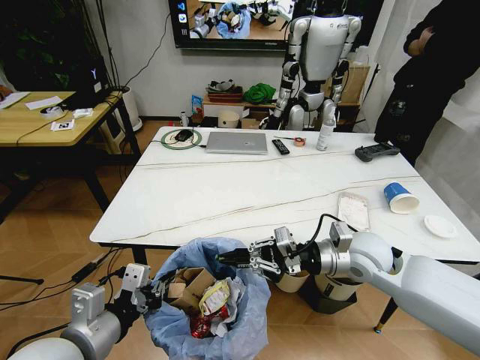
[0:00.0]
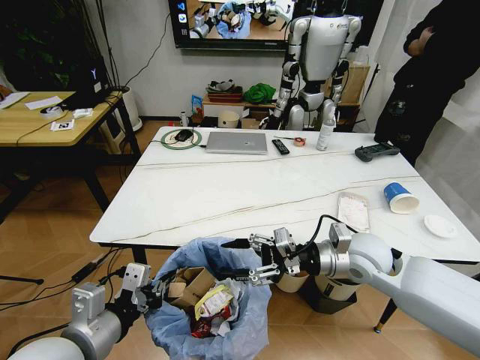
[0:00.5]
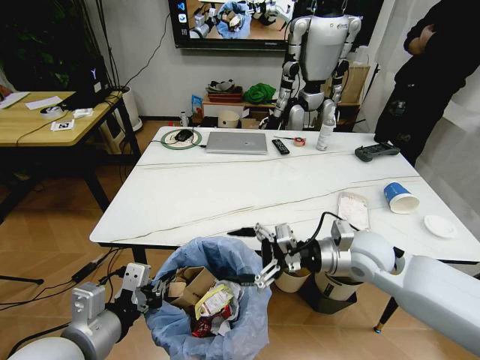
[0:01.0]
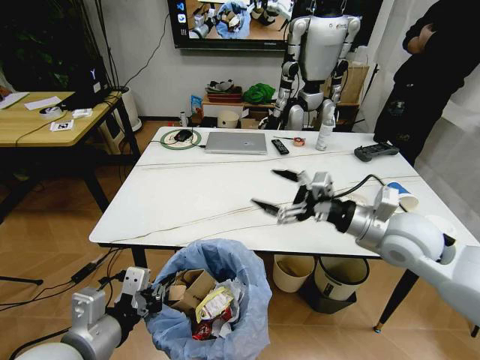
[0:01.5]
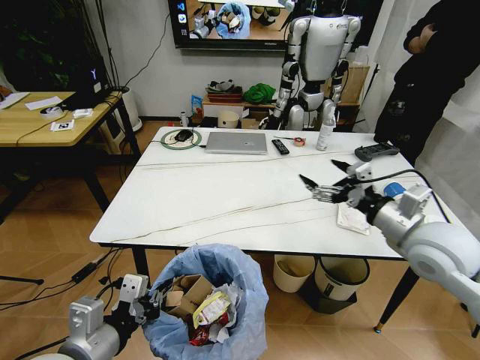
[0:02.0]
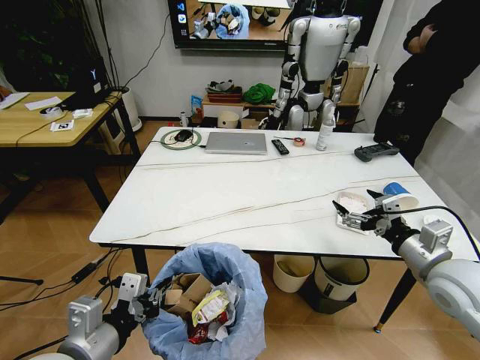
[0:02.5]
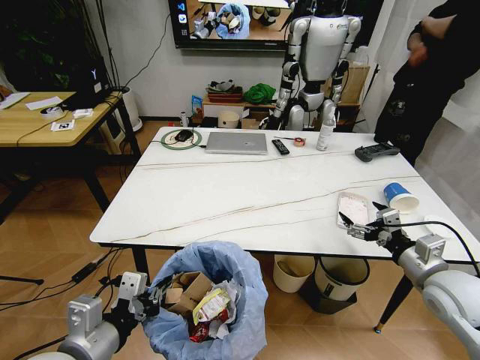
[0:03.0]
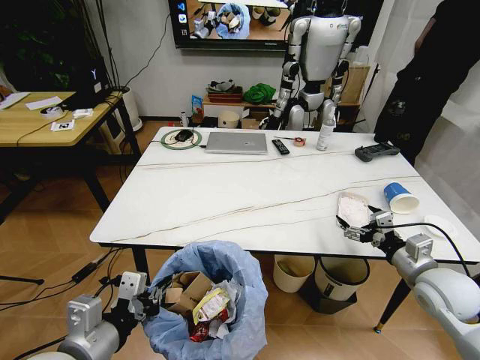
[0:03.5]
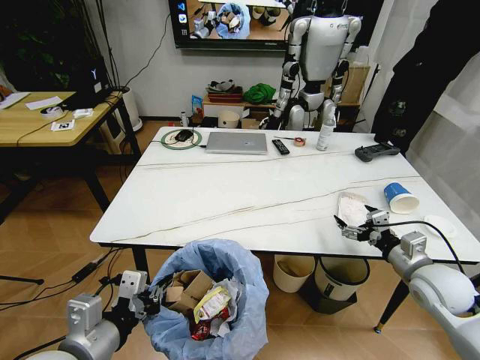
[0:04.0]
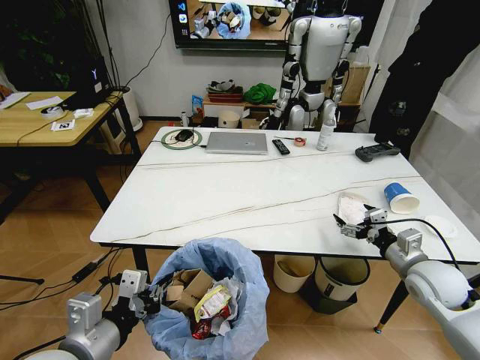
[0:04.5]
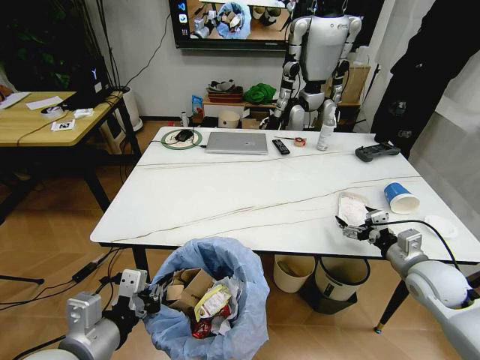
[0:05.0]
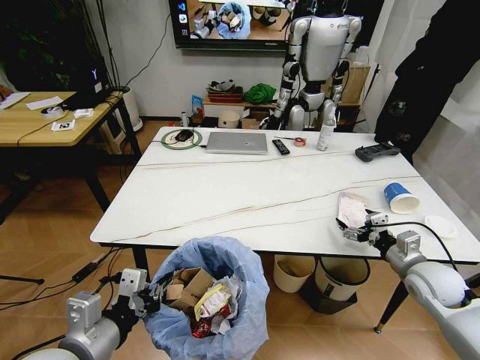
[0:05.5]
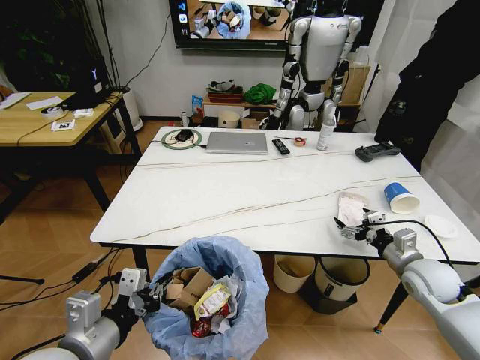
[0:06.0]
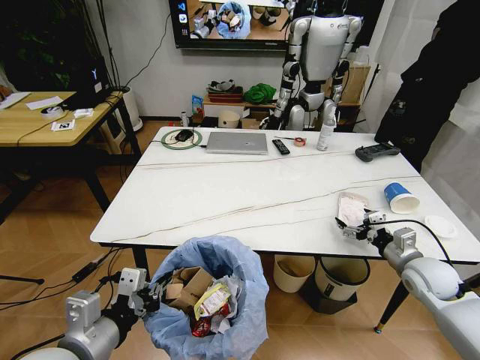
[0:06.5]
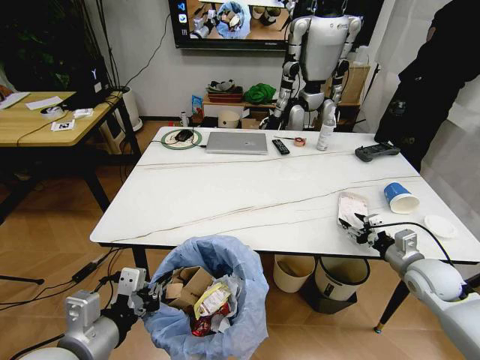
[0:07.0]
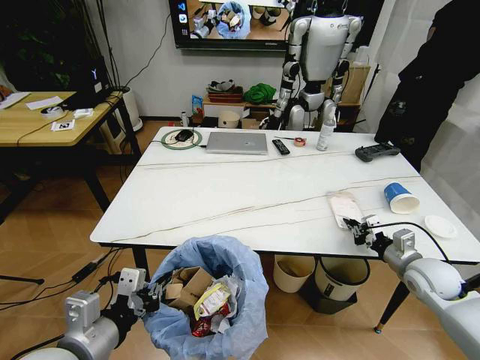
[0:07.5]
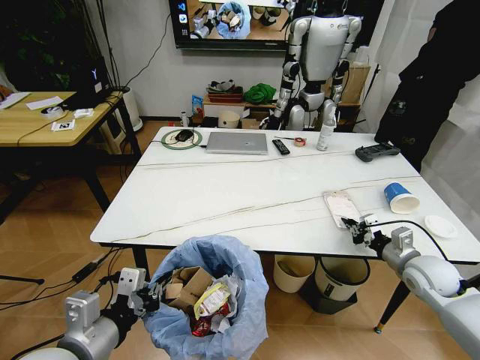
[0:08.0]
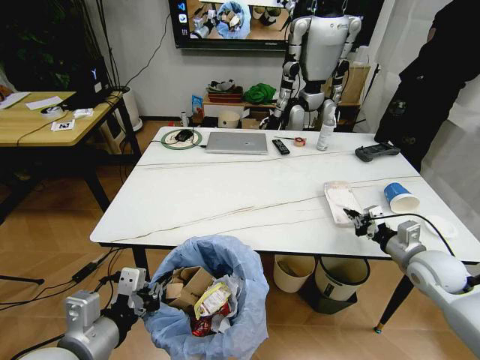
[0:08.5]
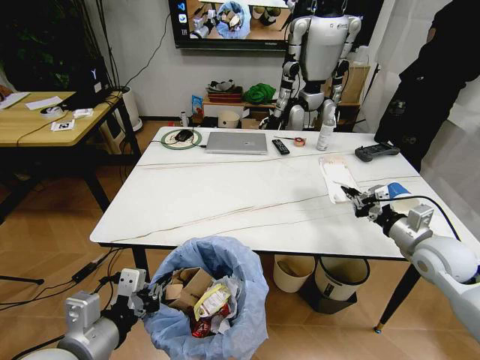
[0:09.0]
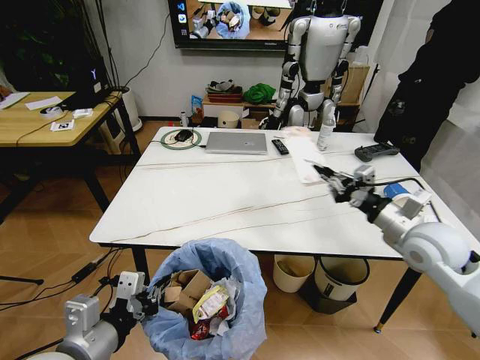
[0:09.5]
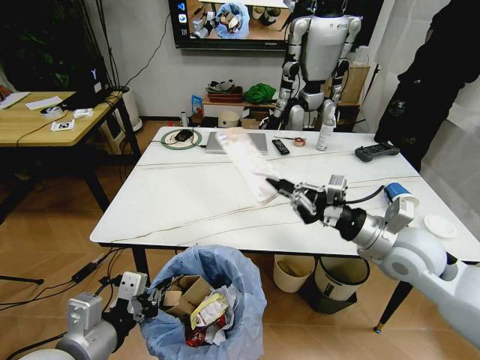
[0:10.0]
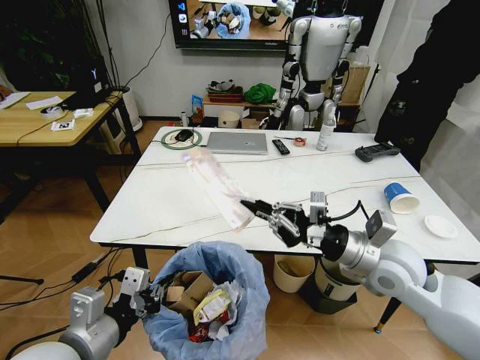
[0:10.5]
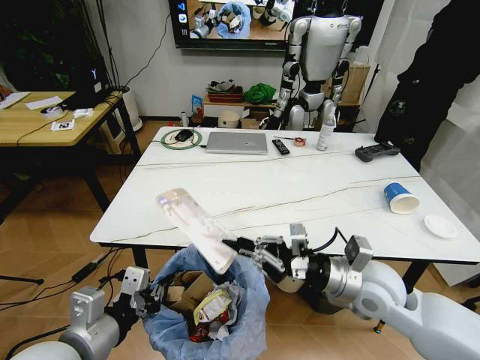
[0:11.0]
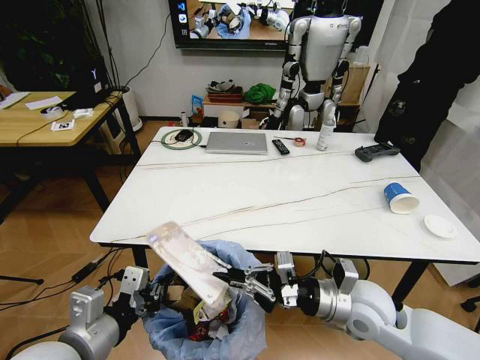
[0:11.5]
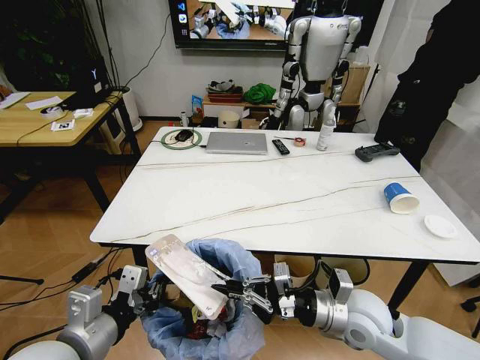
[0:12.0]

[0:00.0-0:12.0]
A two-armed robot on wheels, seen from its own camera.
Task of the whole recording: Pick up the trash bin and place the trash from the table into it.
0:00.0 to 0:02.0: The right gripper moves to the right and upward, roughly 10 cm, and opens up.
0:02.0 to 0:04.0: The right gripper goes approximately 15 cm downward and to the right.
0:04.0 to 0:06.0: The grippers stay close to where they were, moving slightly.
0:06.0 to 0:08.0: The right gripper closes.
0:08.0 to 0:10.0: The right gripper goes some 20 cm upward and to the left.
0:10.0 to 0:12.0: The right gripper shifts approximately 15 cm downward, to the left and backward.

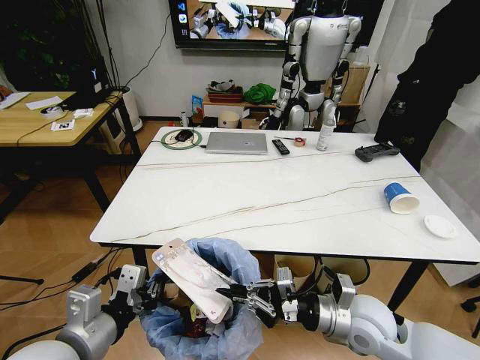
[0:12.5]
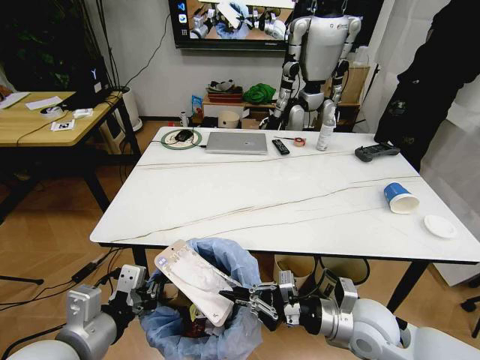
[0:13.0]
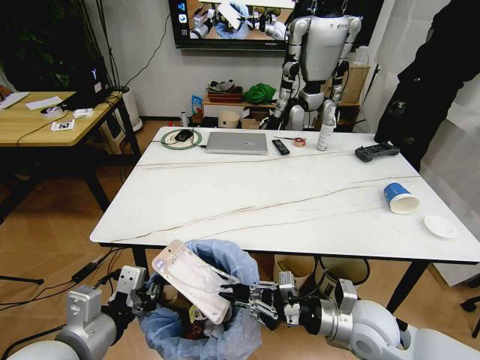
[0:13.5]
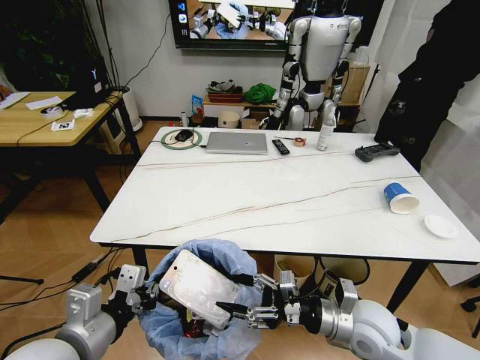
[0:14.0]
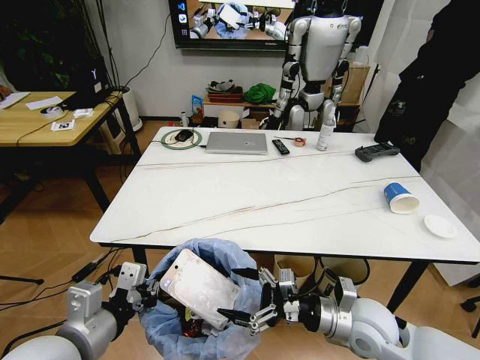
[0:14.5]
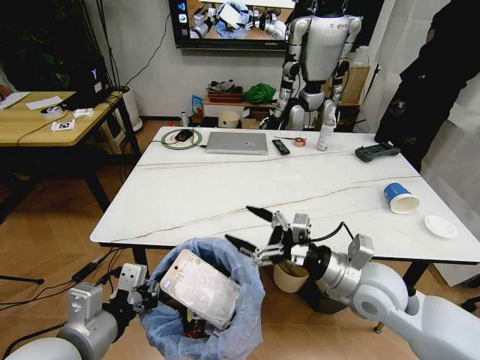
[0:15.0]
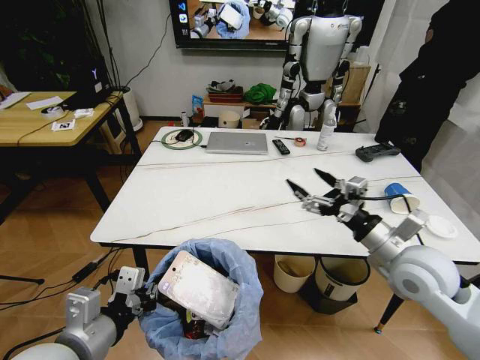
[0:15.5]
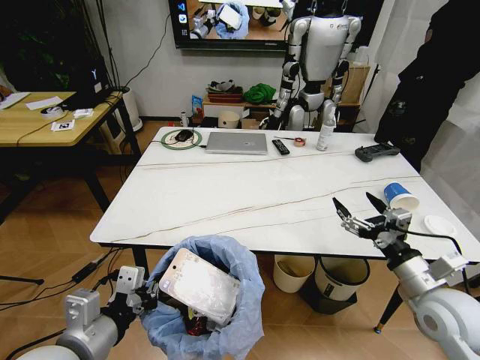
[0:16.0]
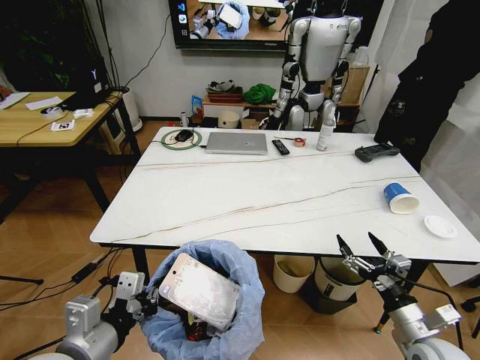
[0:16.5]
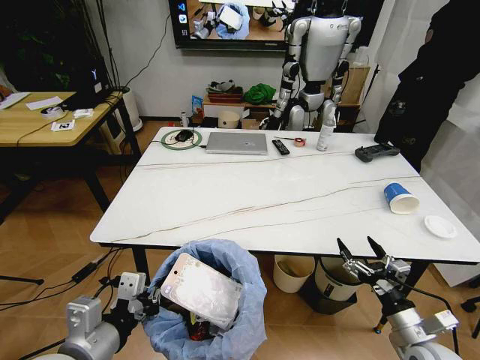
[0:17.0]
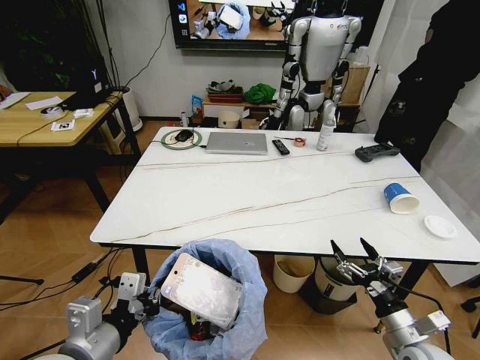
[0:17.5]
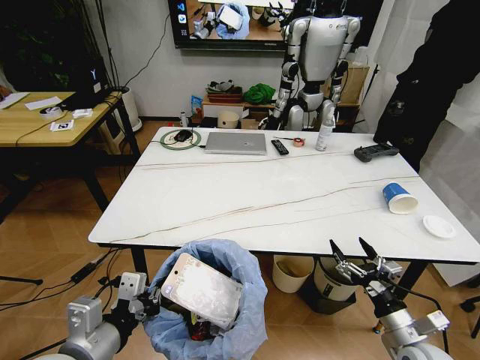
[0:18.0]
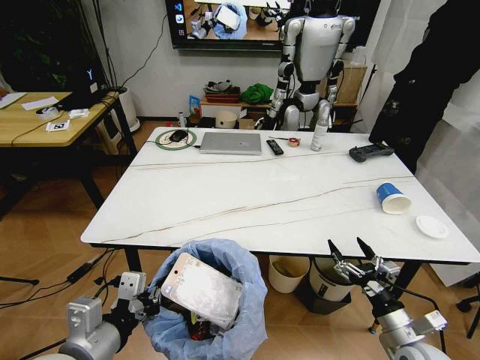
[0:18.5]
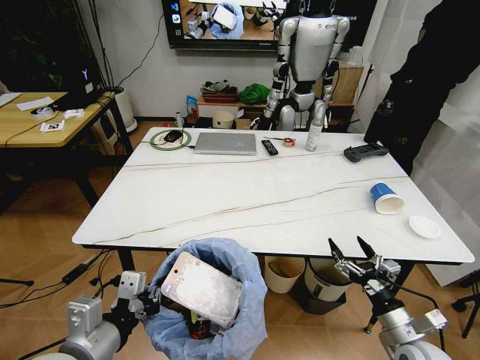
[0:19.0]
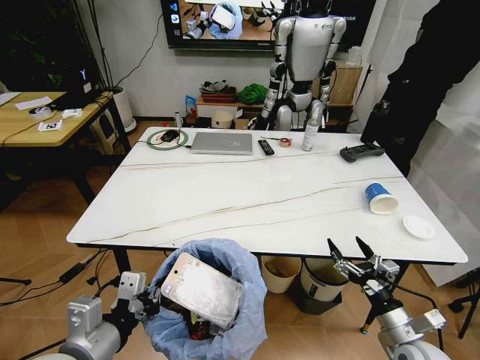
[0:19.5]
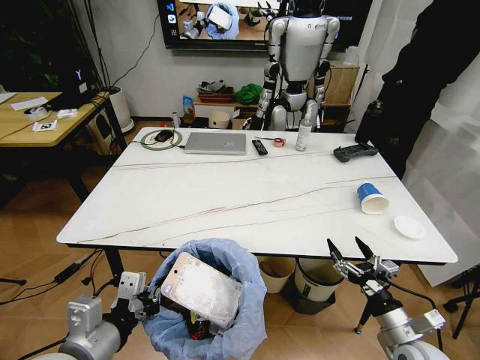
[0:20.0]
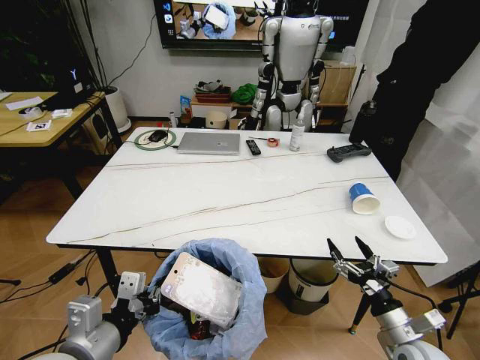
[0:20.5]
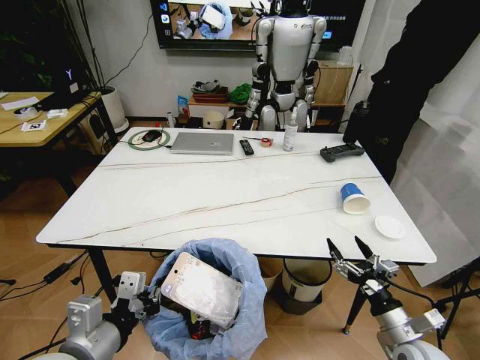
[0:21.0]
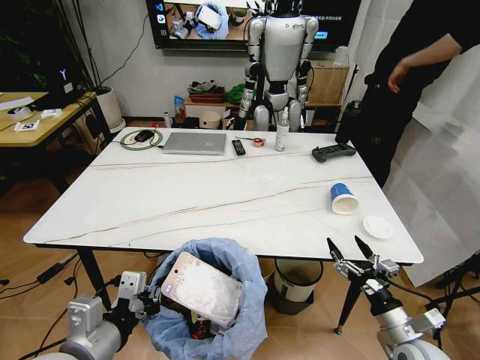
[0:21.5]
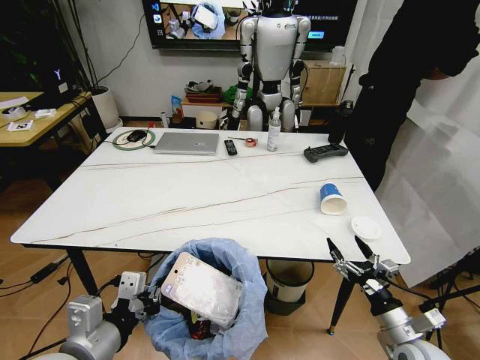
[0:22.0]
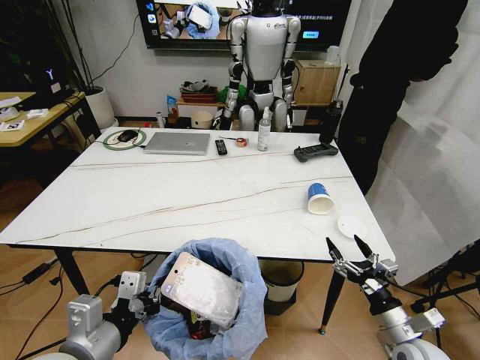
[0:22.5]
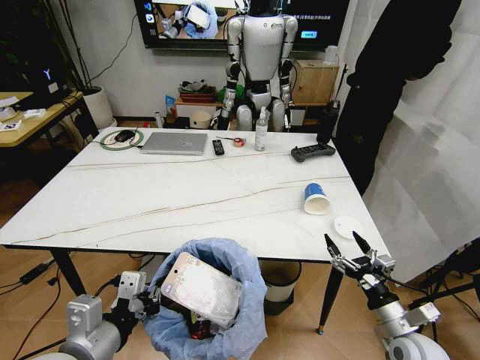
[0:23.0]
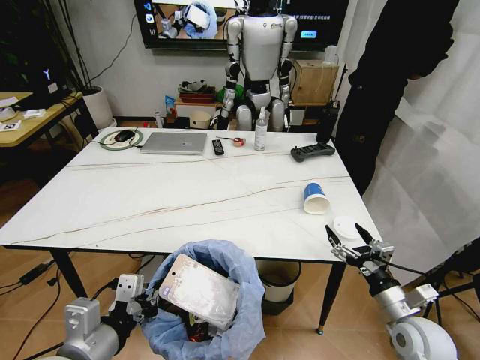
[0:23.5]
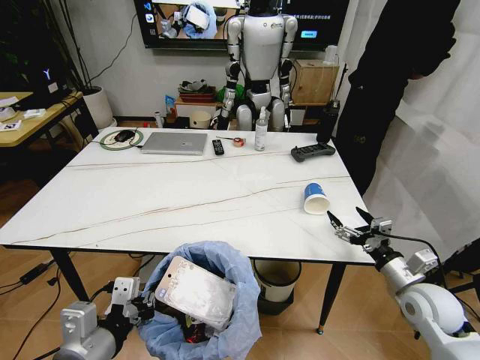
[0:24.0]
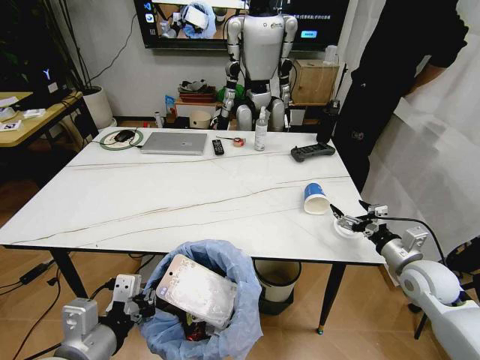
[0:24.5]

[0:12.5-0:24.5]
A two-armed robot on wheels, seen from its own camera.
Task of the whole recording: Pick up the trash bin and place the trash from the table into it.
0:12.5 to 0:14.5: The right gripper opens up.
0:14.5 to 0:16.5: The right gripper moves to the right and backward, about 15 cm, and travels upward and back again, roughly 10 cm each way.
0:22.5 to 0:24.5: The right gripper moves forward, upward and to the right, some 15 cm.

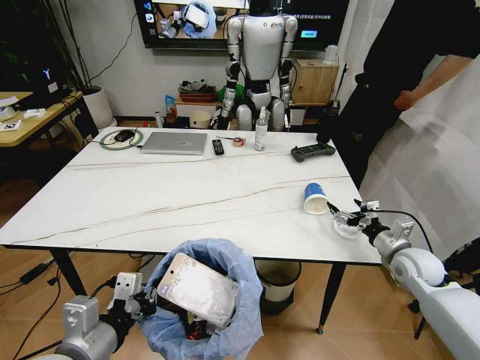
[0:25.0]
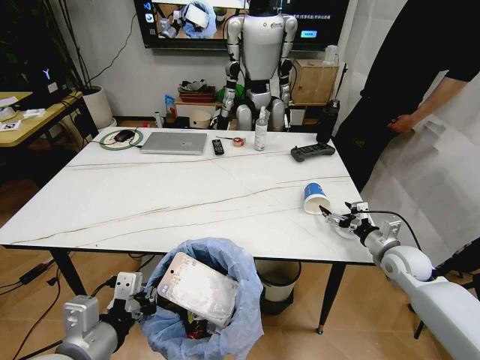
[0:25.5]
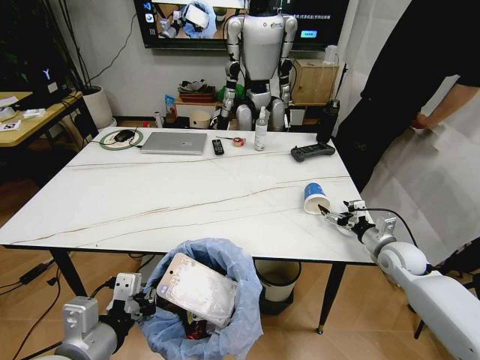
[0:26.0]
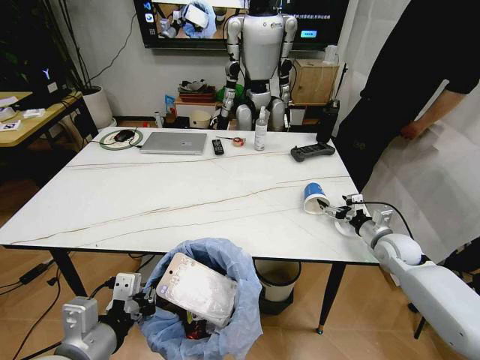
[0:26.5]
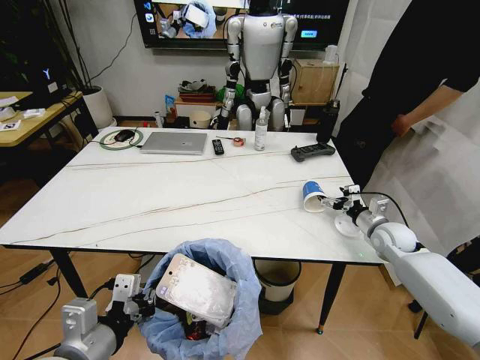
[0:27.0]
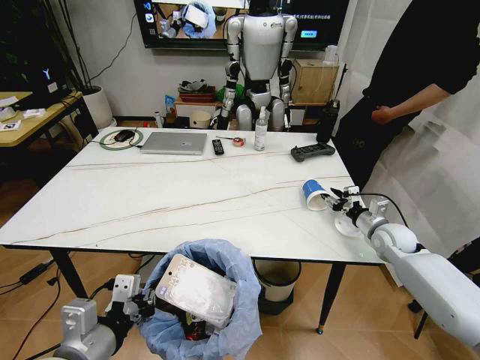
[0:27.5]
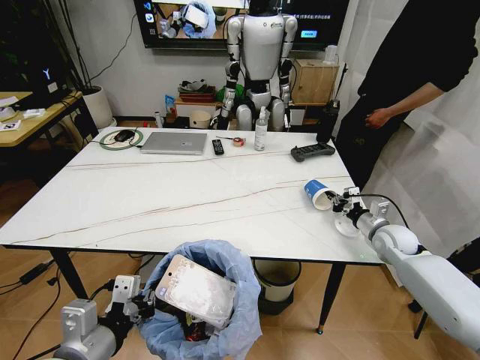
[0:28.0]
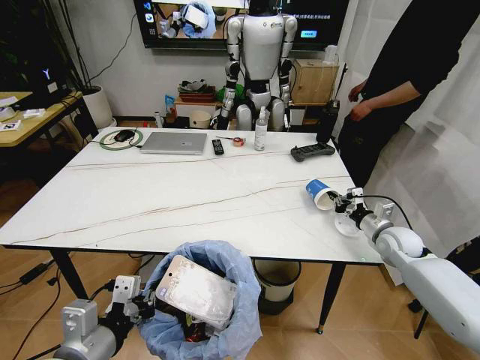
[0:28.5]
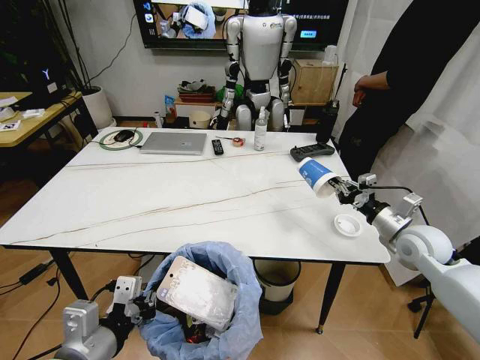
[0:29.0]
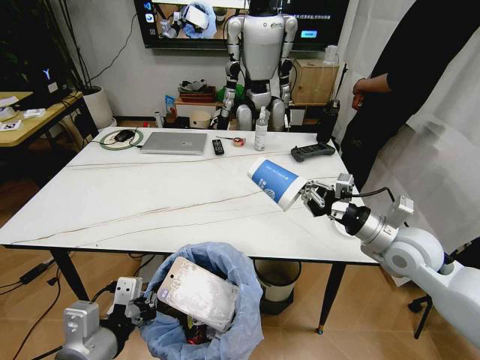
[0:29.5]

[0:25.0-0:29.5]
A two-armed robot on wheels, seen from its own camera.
Task of the whole recording: Pick up the trash bin and place the trash from the table into it.
0:25.0 to 0:27.0: The right gripper moves forward, some 10 cm.
0:27.0 to 0:29.5: The right gripper shifts approximately 20 cm upward, backward and to the left, and closes up.
